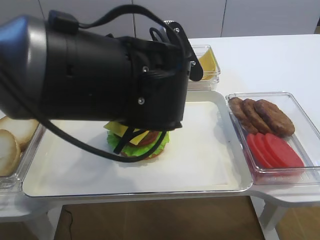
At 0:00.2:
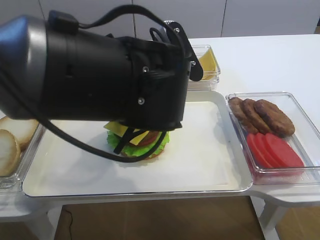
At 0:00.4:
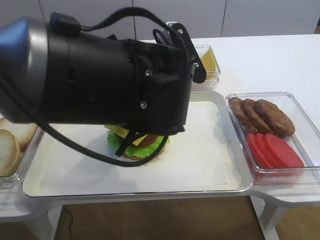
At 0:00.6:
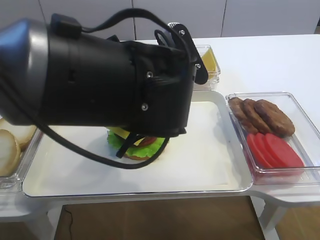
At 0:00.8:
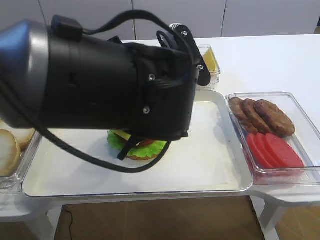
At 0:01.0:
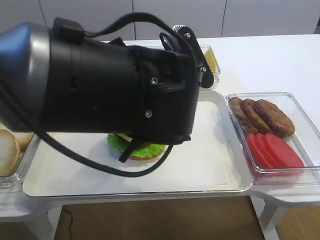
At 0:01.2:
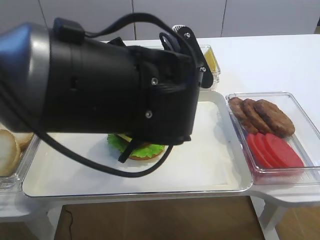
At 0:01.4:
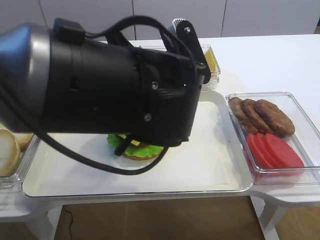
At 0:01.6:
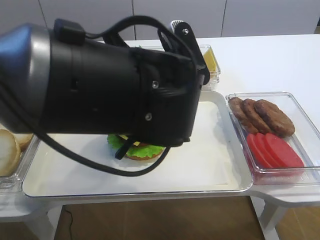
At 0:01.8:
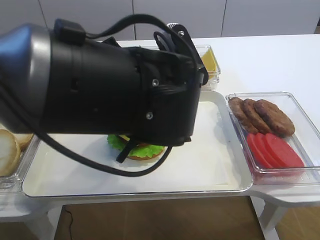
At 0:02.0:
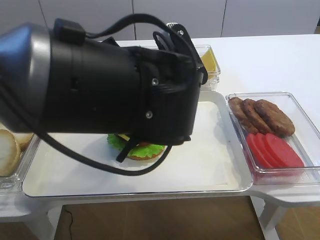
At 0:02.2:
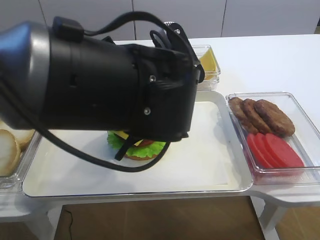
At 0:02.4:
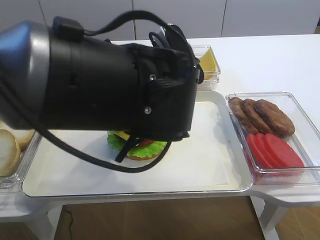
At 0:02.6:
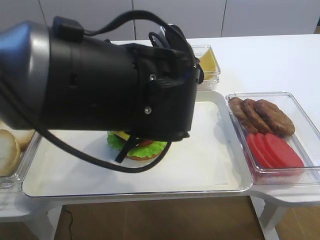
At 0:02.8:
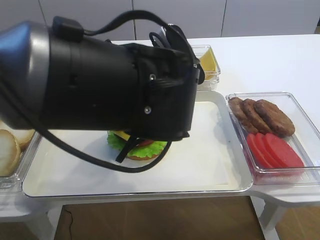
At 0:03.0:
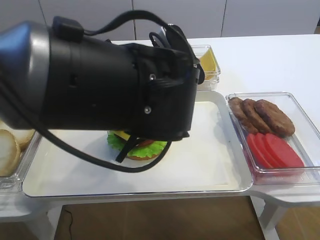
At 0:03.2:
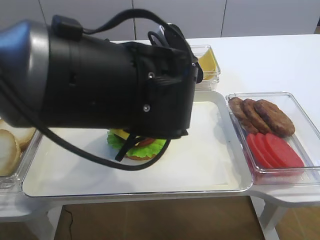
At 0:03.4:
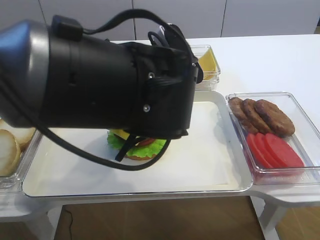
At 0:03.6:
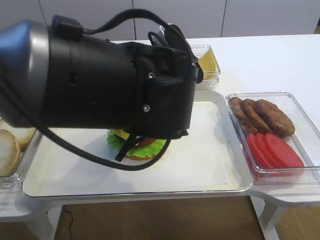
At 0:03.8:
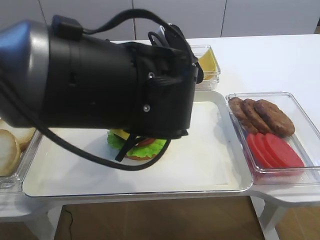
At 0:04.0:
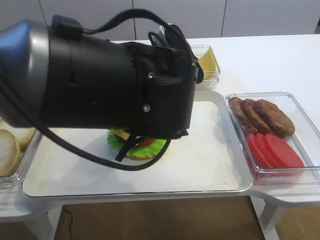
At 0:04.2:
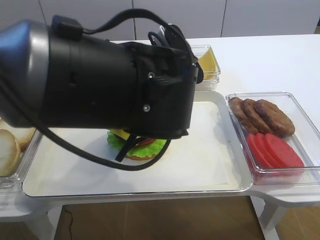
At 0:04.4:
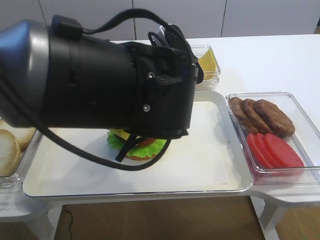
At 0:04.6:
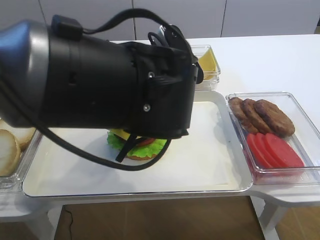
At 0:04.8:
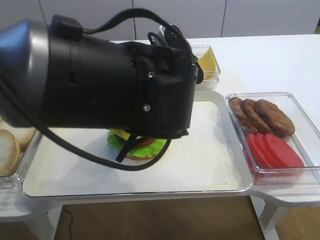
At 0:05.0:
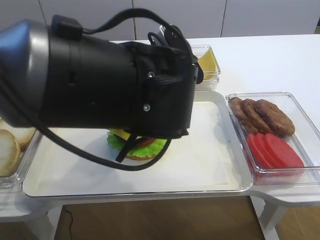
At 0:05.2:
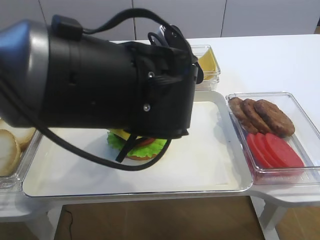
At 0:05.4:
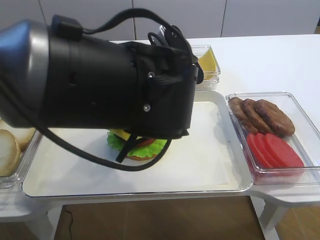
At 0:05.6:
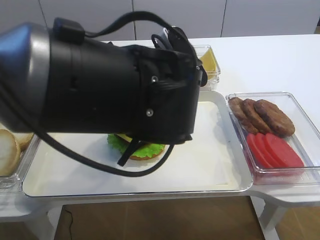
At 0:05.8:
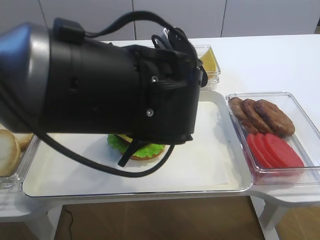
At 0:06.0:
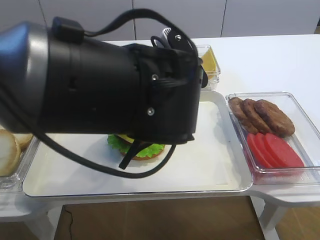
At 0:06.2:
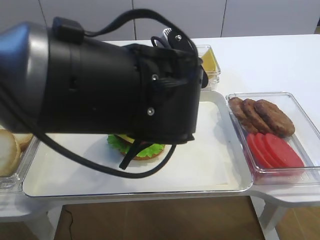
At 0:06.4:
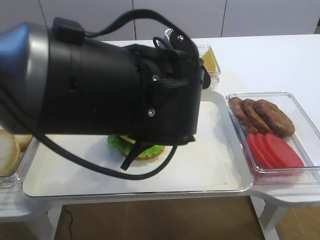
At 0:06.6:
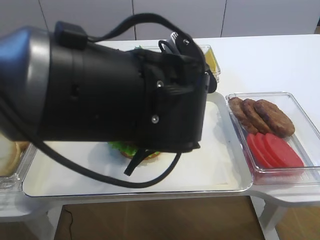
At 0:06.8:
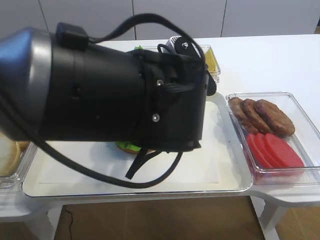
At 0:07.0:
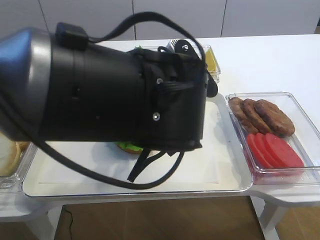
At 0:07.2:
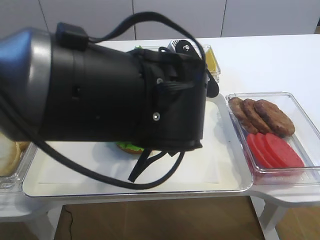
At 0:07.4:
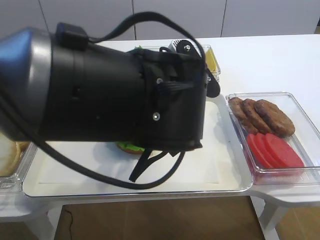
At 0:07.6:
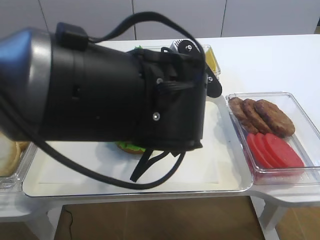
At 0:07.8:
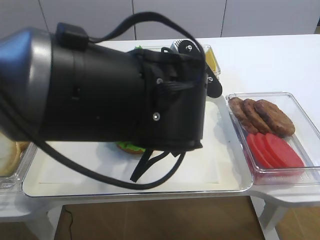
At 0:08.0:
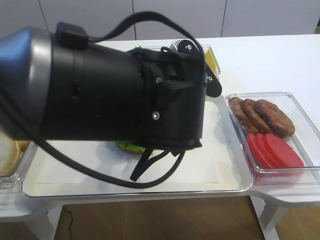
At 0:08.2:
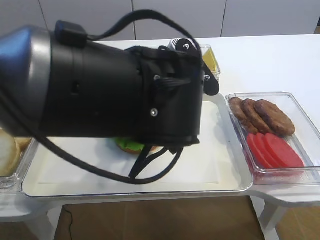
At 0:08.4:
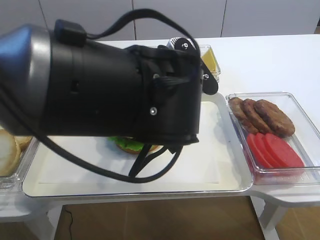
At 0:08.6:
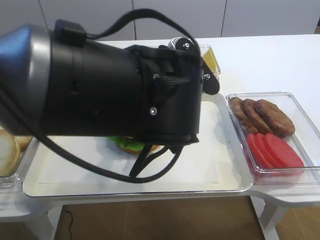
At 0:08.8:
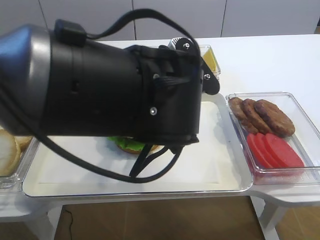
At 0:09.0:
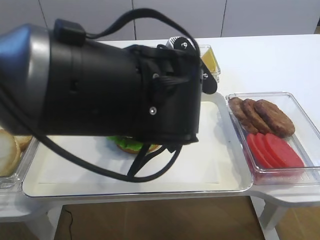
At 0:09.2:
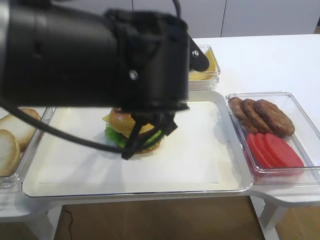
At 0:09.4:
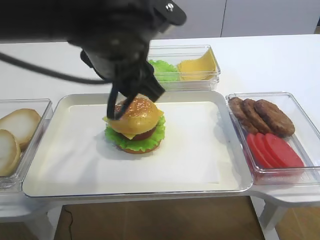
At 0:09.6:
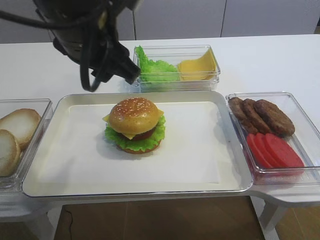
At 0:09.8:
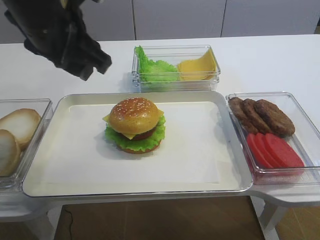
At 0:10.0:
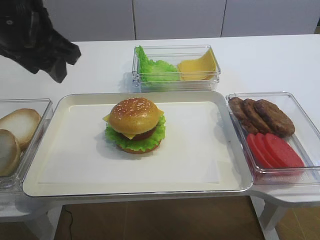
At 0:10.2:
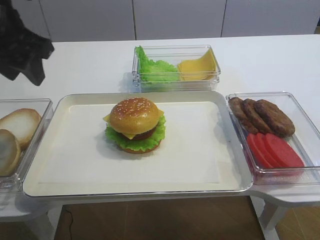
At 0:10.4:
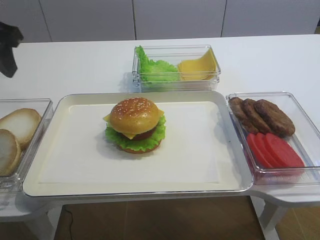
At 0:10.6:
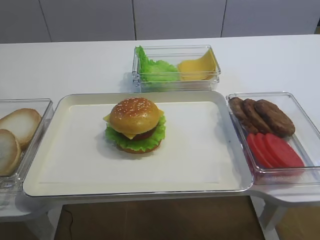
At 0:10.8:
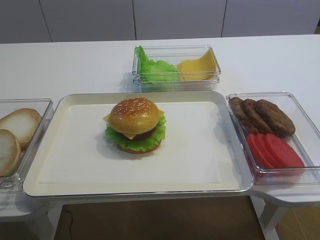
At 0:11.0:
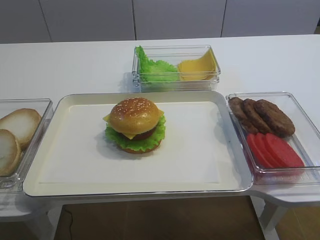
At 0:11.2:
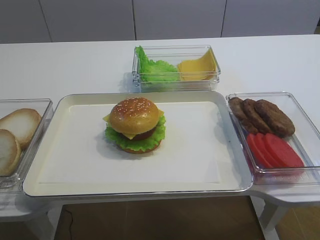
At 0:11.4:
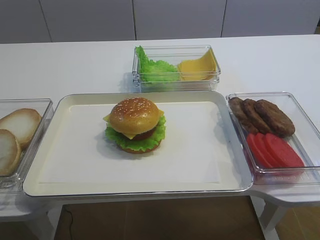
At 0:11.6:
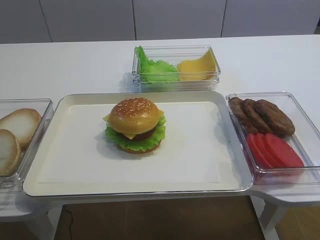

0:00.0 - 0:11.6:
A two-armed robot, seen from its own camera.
Step, 0:00.0 - 0:09.6: Place the hamburger lid on the cheese slice with the left gripper.
0:00.0 - 0:02.8: The grippers move only a little.
0:02.8 - 0:05.8: Neither gripper changes place.
0:05.8 - 0:07.2: There are only small adjustments of the grippers.
0:07.2 - 0:08.8: The left gripper opens.
0:08.8 - 0:10.2: The left gripper goes about 20 cm to the left.
0:10.2 - 0:11.6: The left gripper moves backward, approximately 25 cm.
